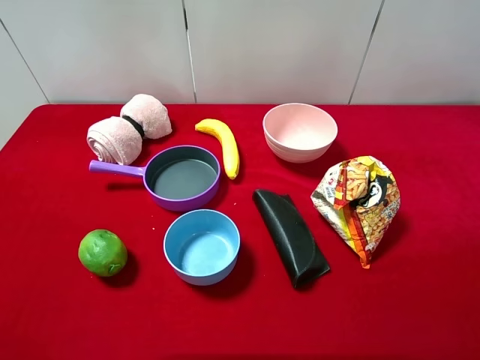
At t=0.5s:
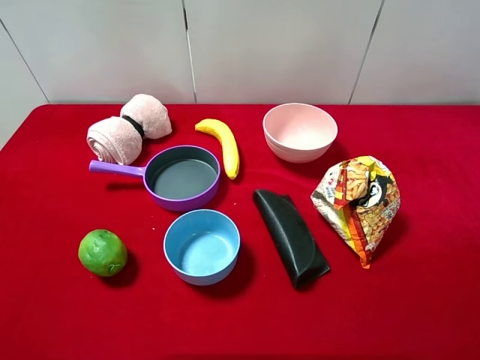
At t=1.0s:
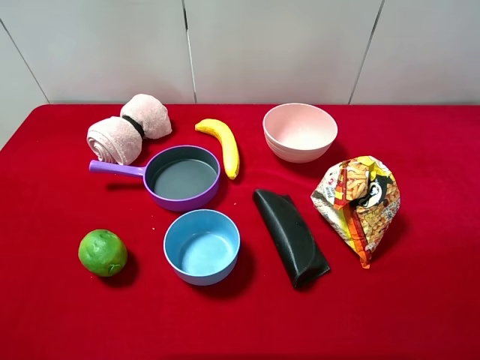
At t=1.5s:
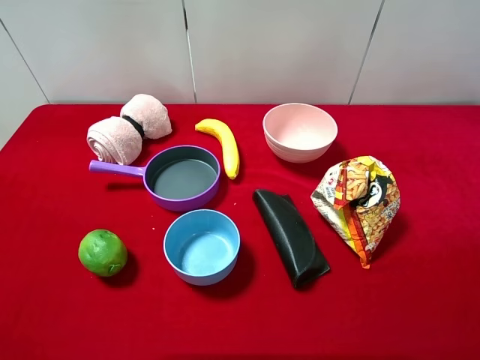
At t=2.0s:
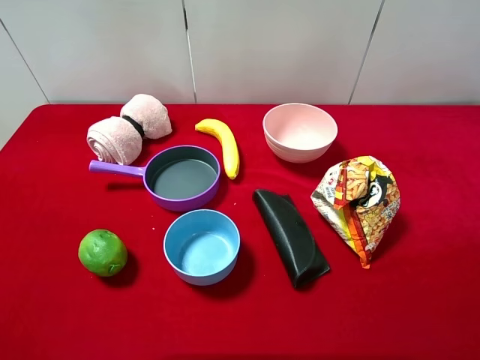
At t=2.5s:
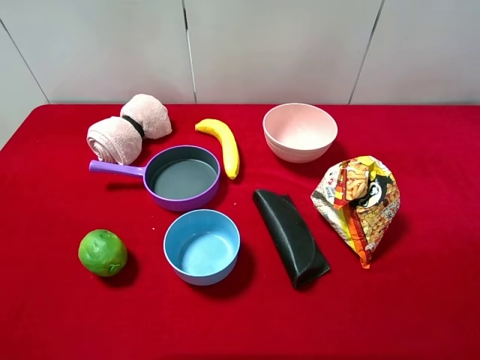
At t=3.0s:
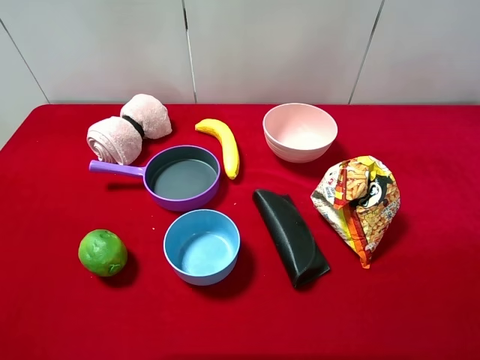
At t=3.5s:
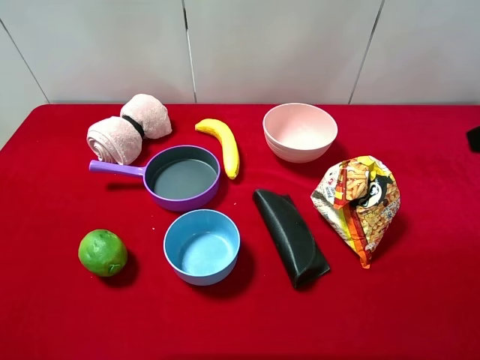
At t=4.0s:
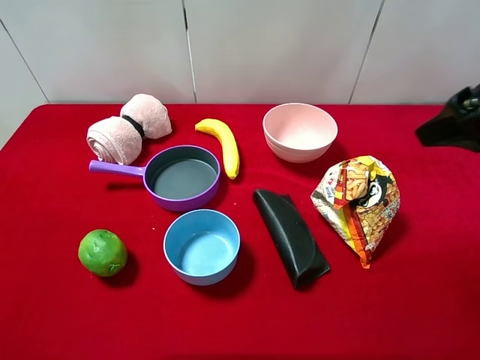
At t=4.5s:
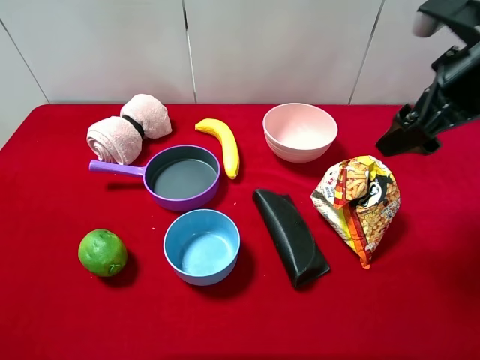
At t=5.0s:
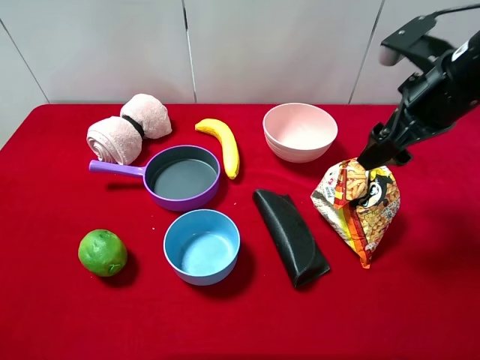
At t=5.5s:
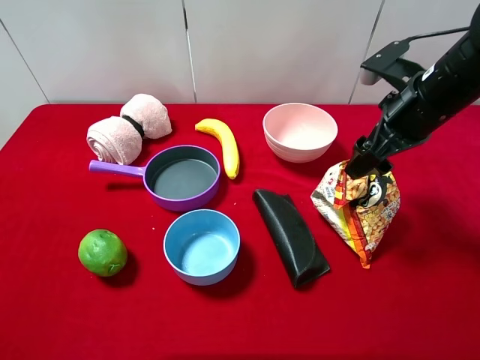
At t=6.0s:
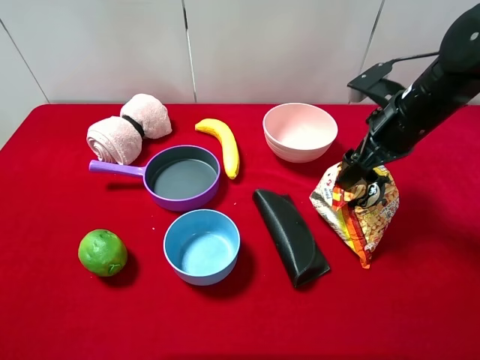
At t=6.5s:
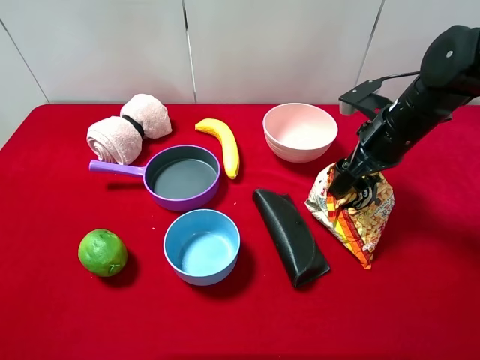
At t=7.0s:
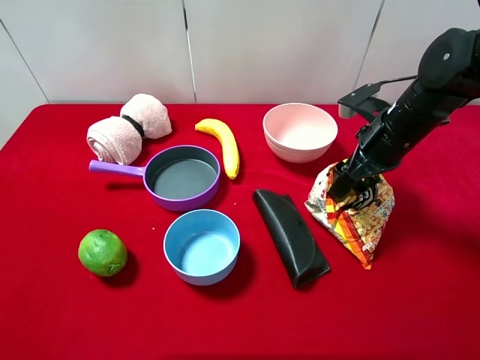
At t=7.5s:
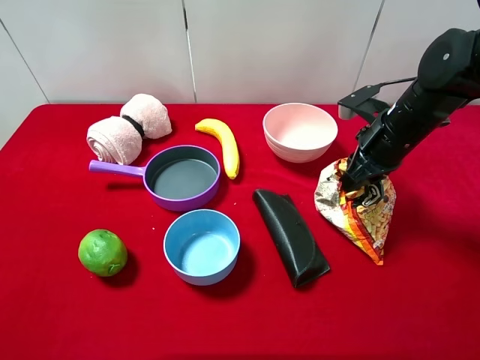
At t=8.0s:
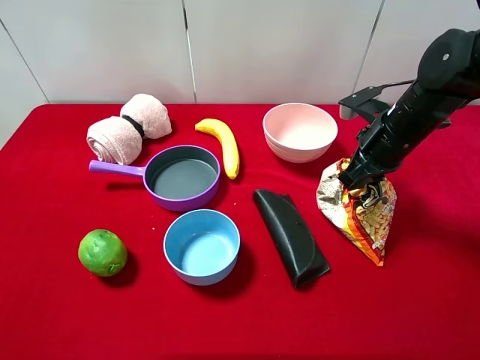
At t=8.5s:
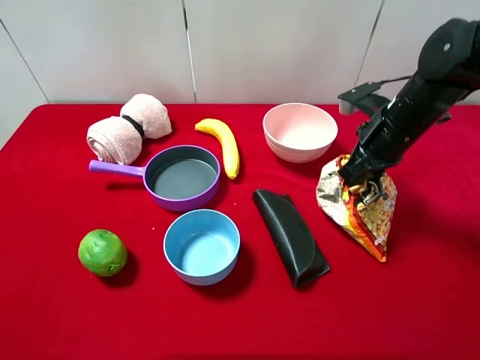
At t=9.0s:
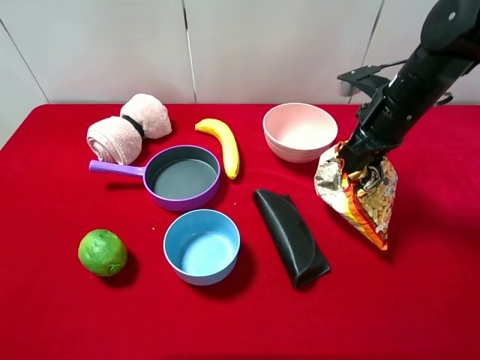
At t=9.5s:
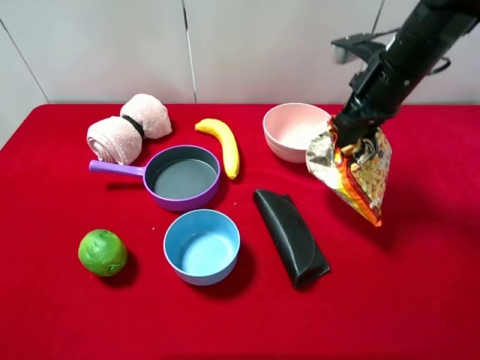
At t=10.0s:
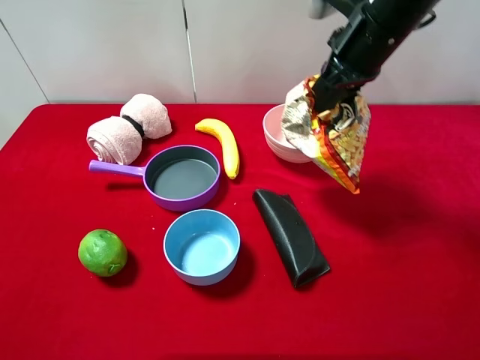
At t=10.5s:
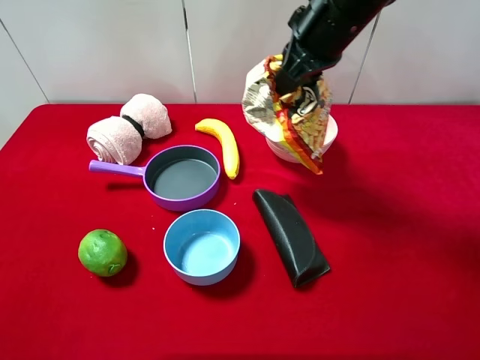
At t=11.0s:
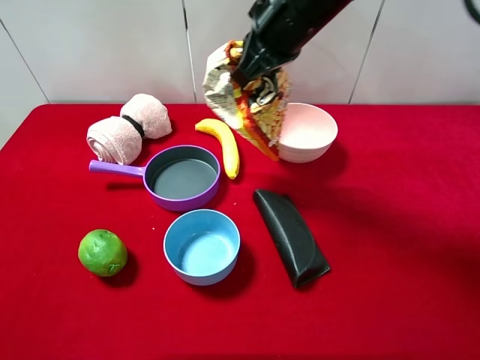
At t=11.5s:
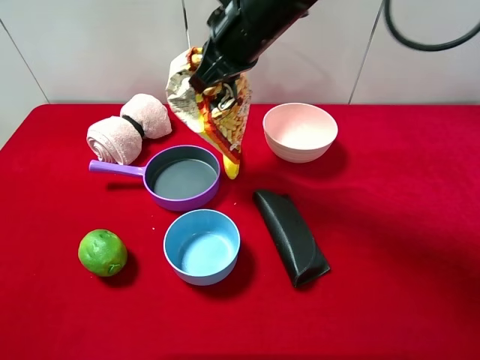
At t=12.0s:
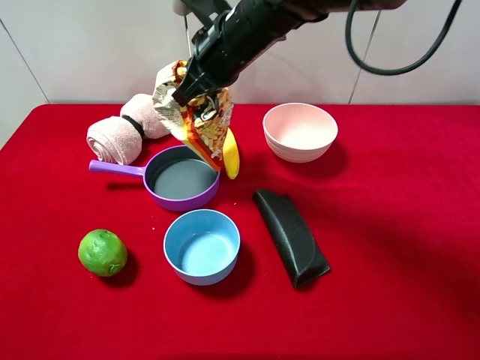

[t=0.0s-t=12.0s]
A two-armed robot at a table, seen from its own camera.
Task of the whole recording: pick up an item with a gripper and place it in a random container on the desktop.
t=0.0s to t=2.0s: Both grippers stay put.
t=2.0s to t=4.0s: The right gripper goes about 20 cm forward.
t=4.0s to t=6.0s: The right gripper is displaced downward and forward by approximately 15 cm.
t=6.0s to t=8.0s: The right gripper closes.
t=8.0s to t=10.0s: The right gripper goes approximately 15 cm upward and to the left.
t=10.0s to t=12.0s: The right gripper is displaced to the left by roughly 15 cm.

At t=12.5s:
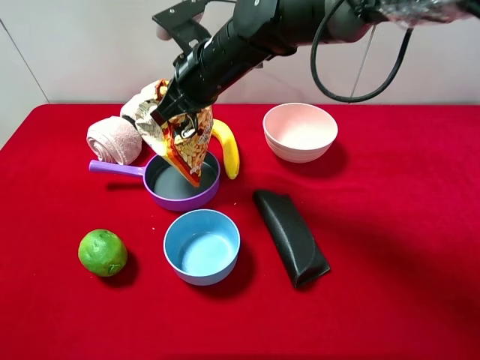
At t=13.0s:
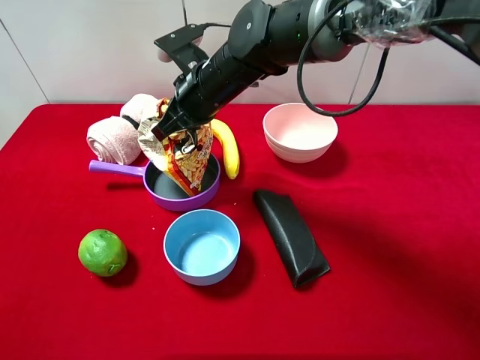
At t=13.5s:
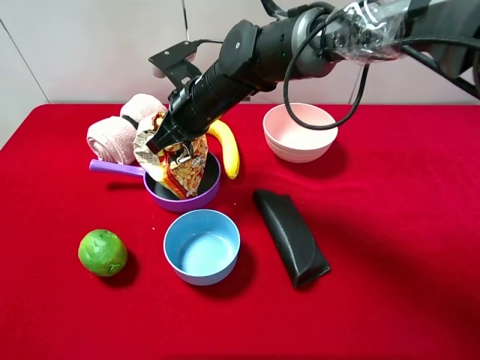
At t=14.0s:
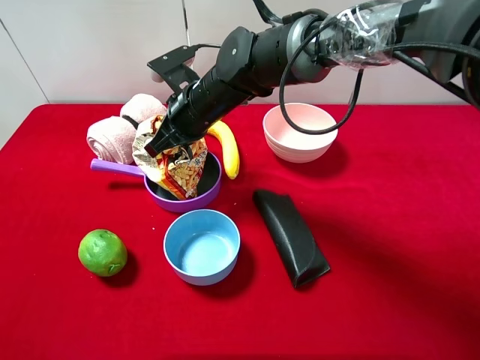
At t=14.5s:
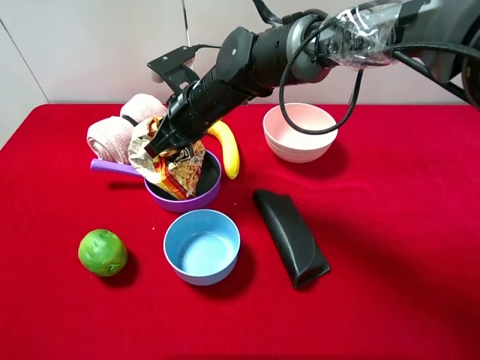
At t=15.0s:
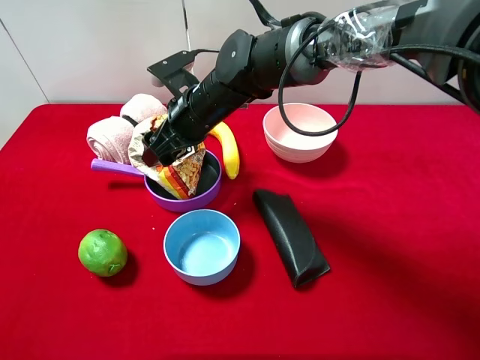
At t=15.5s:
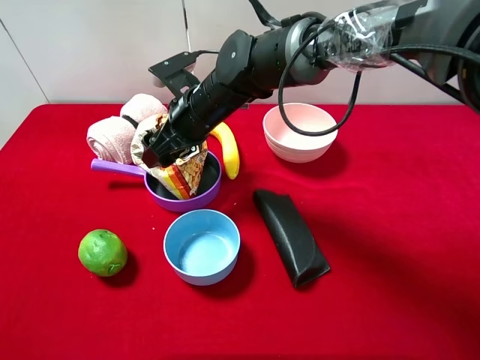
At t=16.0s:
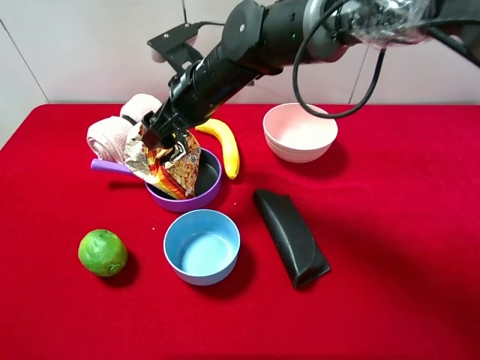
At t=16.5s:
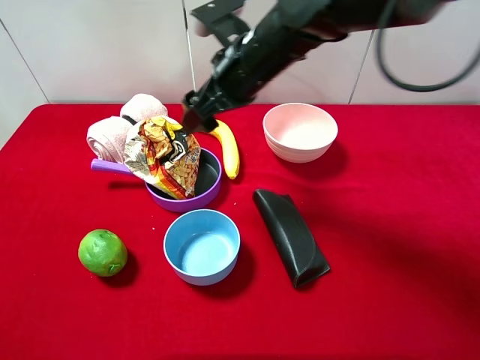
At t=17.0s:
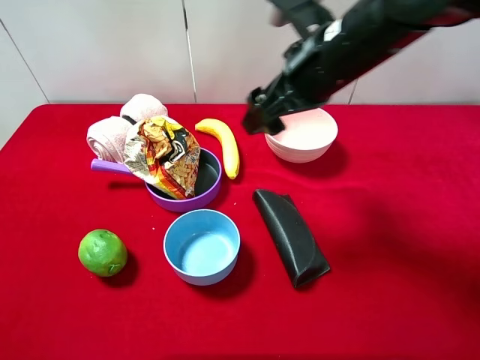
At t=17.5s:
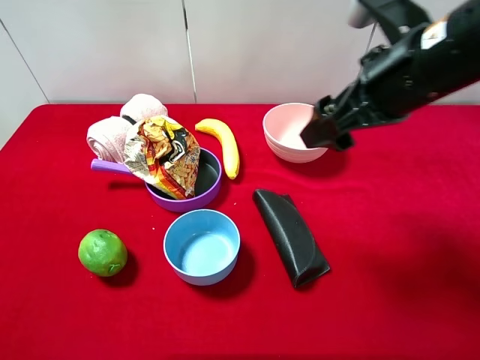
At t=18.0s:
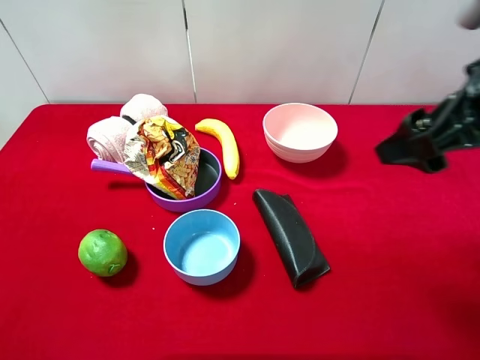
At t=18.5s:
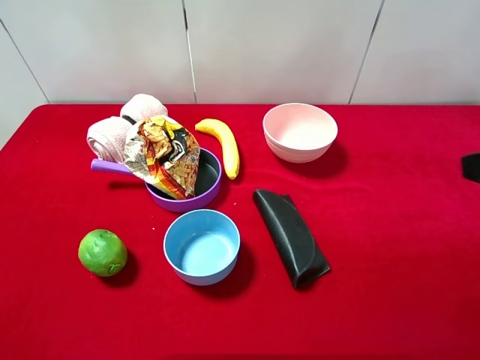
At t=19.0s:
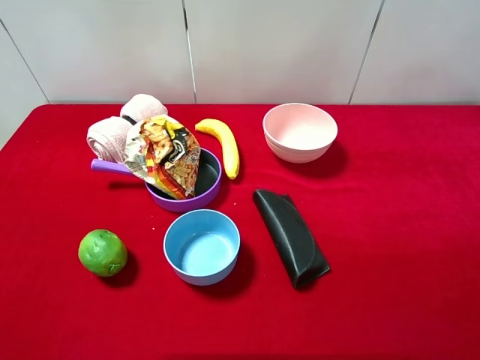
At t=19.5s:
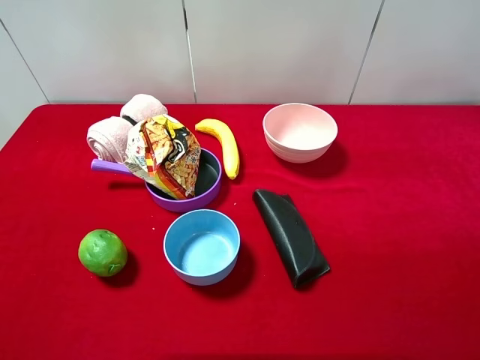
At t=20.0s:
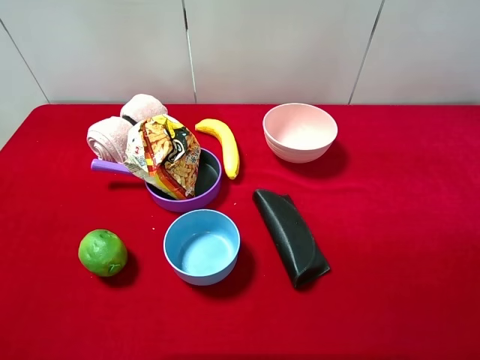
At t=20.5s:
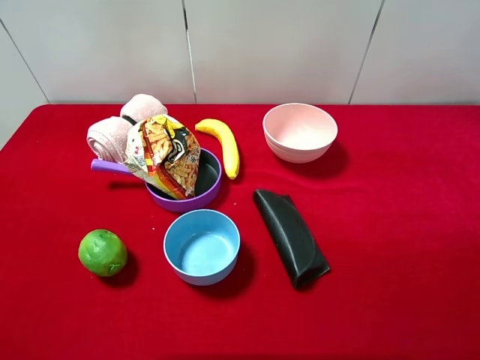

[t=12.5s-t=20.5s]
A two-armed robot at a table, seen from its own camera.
Task of the whole recording: pick up an item with a gripper and place it in a random container on the desktop.
t=12.5s to t=14.5s: The right gripper heads downward, covering some 5 cm, and opens its fingers.
t=14.5s to t=16.5s: The right gripper travels upward and to the right by about 10 cm, and opens its fingers.
t=16.5s to t=18.5s: The right gripper shifts approximately 35 cm to the right and backward.
t=18.5s to t=20.5s: The right gripper travels backward by some 10 cm.
